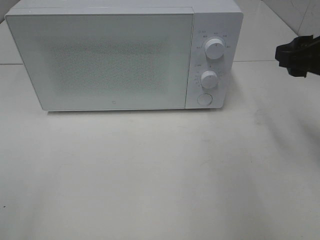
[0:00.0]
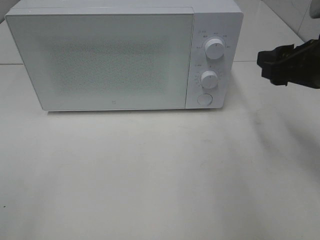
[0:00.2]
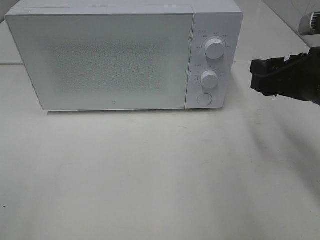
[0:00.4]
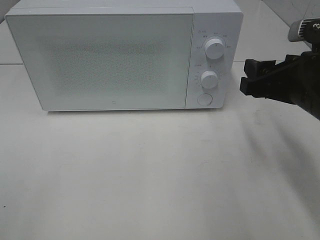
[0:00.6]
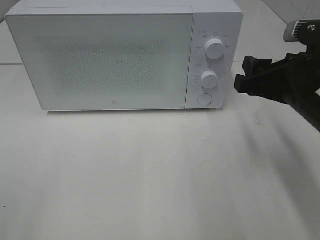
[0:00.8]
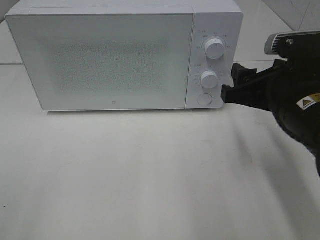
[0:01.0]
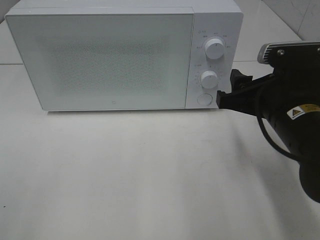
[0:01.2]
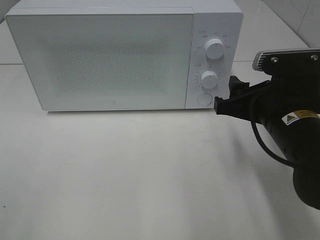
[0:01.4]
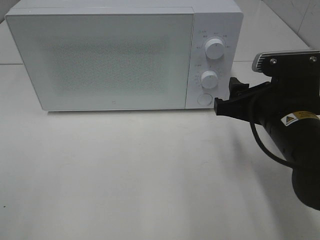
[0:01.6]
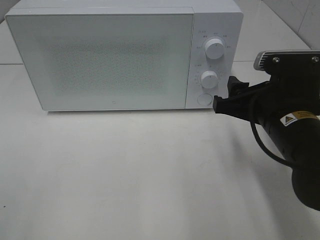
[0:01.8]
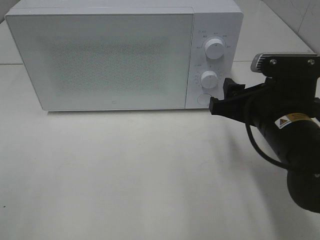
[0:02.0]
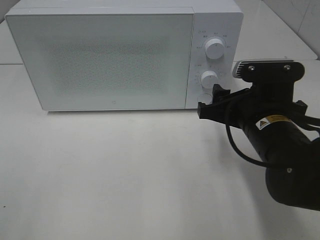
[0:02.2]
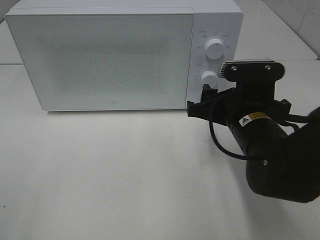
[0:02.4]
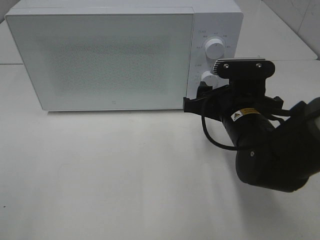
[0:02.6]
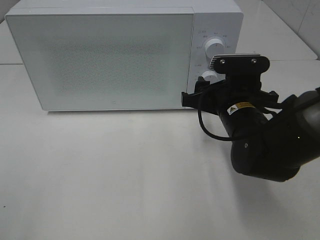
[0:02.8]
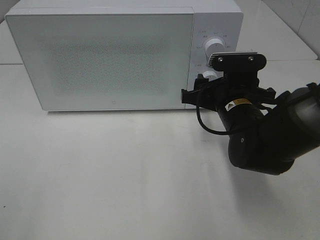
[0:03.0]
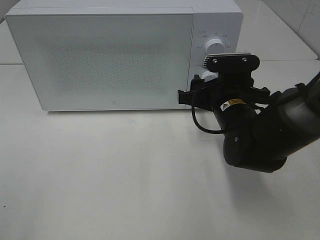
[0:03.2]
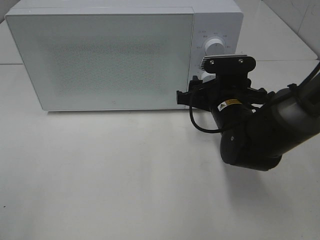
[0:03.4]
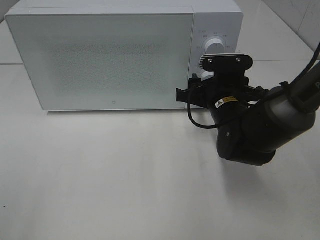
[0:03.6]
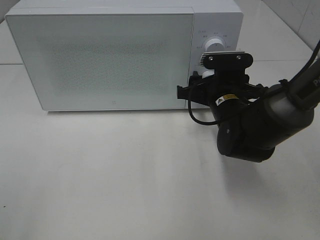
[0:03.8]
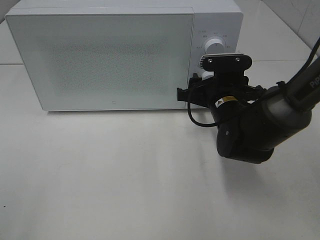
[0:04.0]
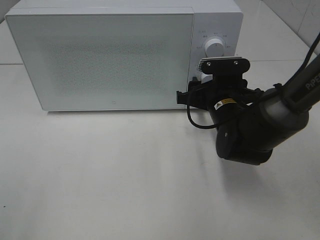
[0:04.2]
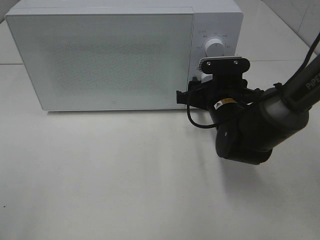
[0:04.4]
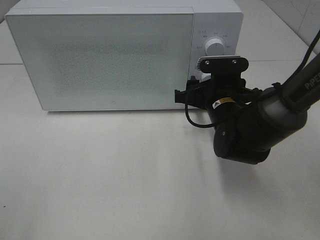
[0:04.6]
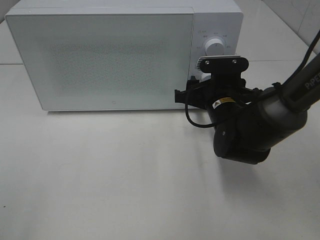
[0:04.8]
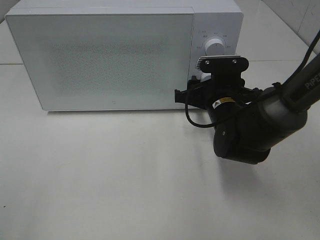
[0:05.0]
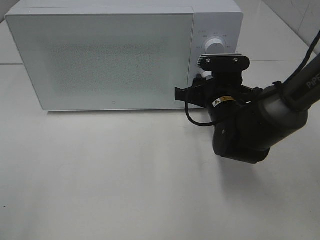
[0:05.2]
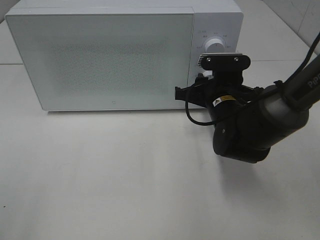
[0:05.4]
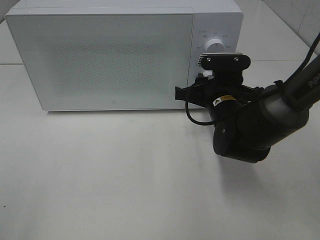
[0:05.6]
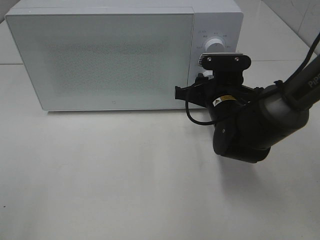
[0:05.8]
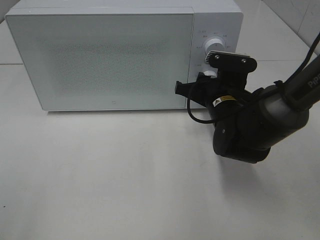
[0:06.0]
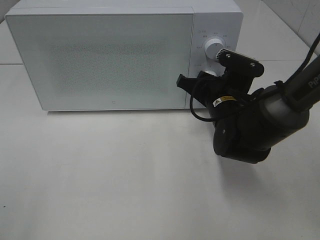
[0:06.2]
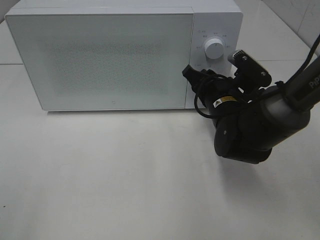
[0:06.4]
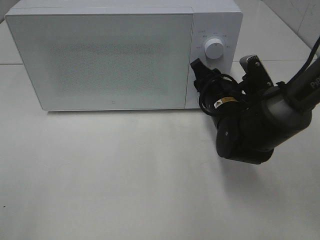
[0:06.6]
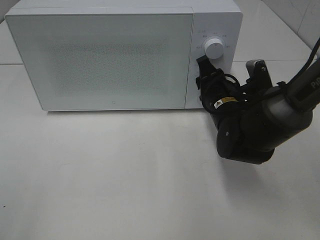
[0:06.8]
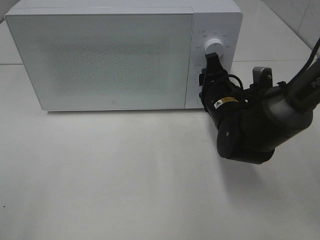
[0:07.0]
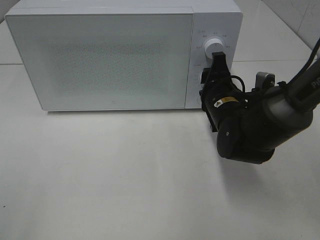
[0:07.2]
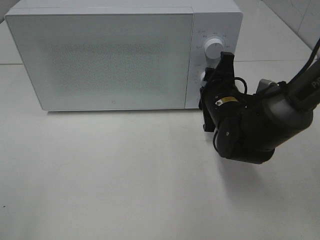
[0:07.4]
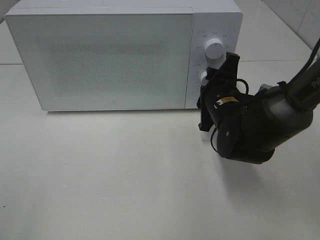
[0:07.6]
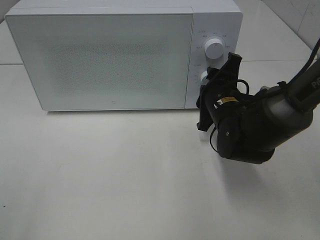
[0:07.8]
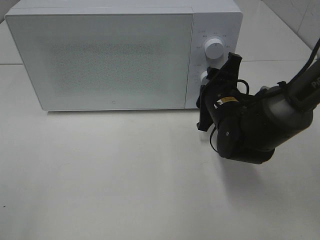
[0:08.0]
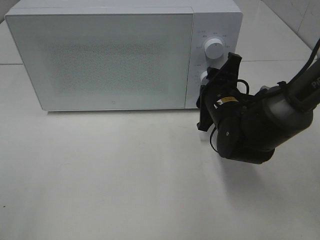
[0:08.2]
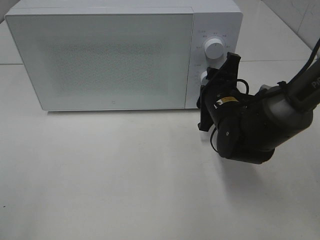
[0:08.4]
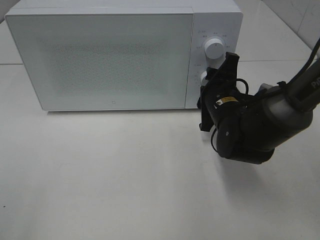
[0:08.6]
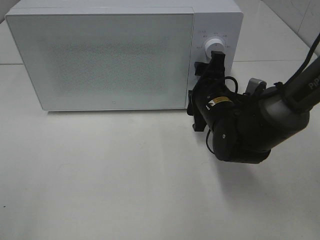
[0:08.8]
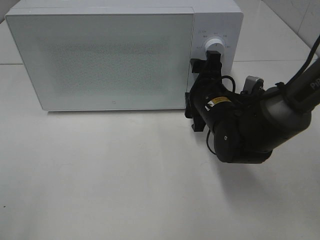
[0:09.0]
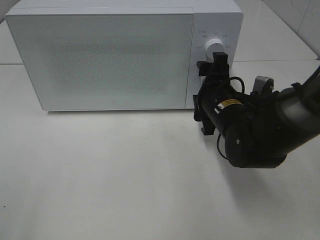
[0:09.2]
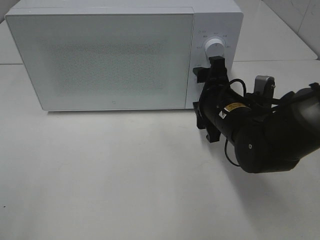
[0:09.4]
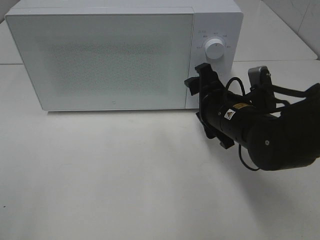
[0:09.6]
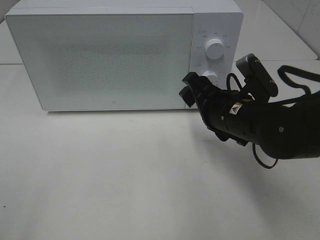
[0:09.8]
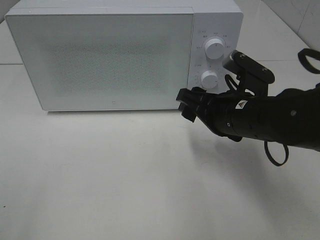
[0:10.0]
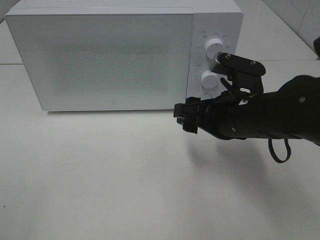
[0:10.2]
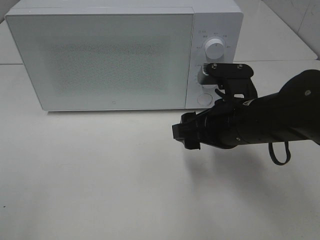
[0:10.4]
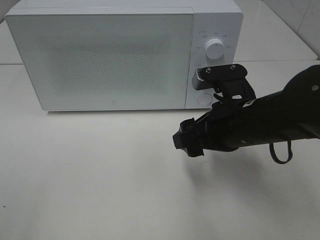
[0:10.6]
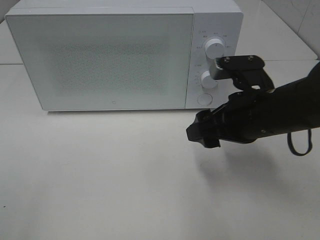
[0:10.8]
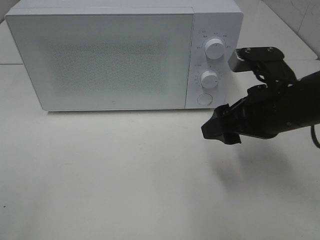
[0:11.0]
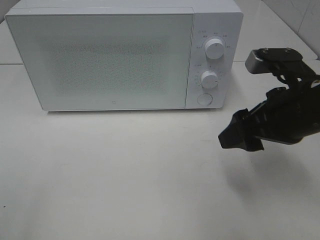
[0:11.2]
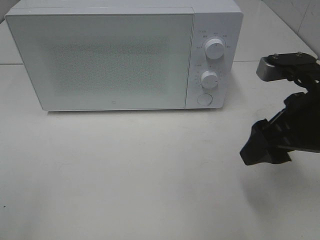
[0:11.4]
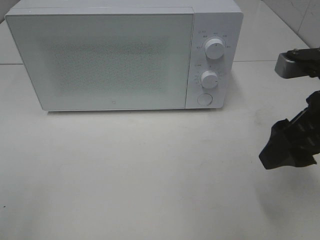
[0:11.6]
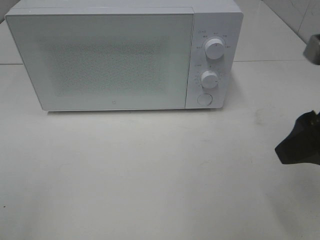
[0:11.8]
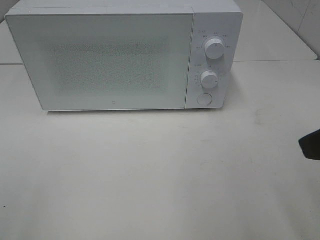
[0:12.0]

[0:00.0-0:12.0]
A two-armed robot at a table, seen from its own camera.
Task of the whole recording: Heat the burger.
Step, 0:00.0 to 0:08.8: Right hand: twist timer button.
0:00.0 to 0:01.6: The right gripper is displaced to the left and downward by approximately 10 cm.
0:01.6 to 0:03.0: The right gripper shifts roughly 10 cm forward.
0:03.0 to 0:06.0: There are only small adjustments of the grippers.
0:07.6 to 0:09.0: The right gripper opens its fingers.
0:09.0 to 0:10.4: The right gripper is displaced backward by some 10 cm.
0:10.4 to 0:12.0: The right gripper is displaced upward, backward and to the right by roughly 20 cm.

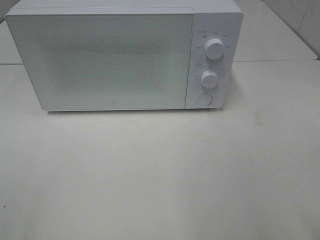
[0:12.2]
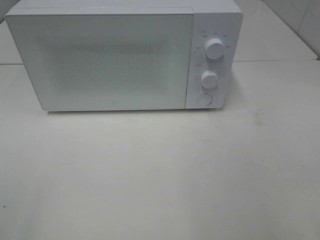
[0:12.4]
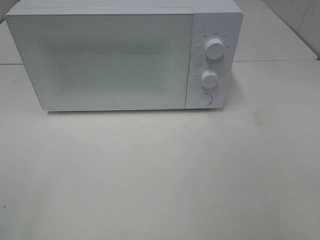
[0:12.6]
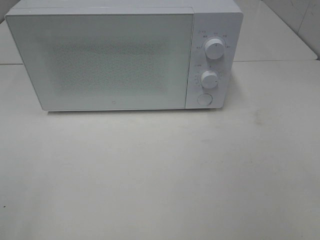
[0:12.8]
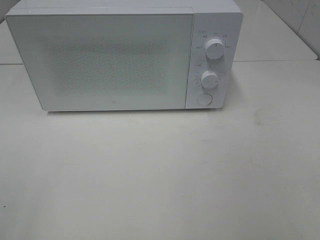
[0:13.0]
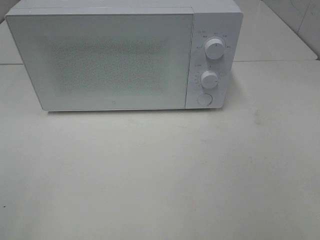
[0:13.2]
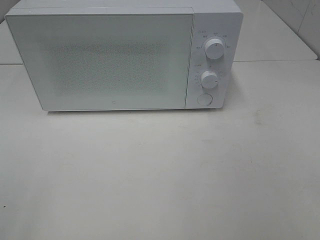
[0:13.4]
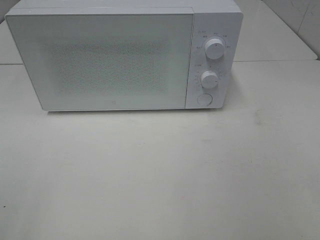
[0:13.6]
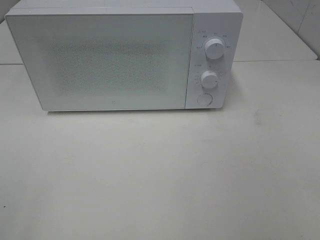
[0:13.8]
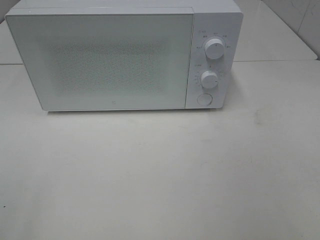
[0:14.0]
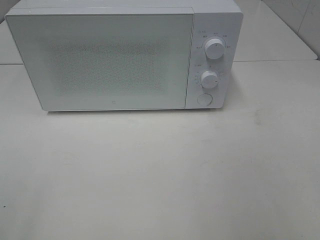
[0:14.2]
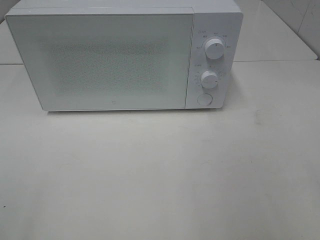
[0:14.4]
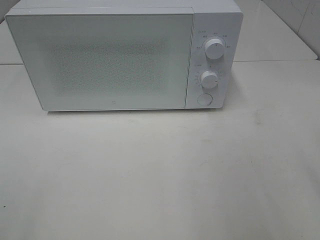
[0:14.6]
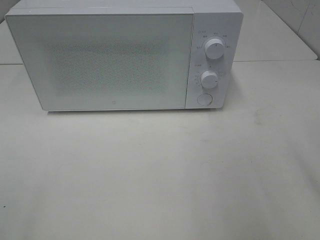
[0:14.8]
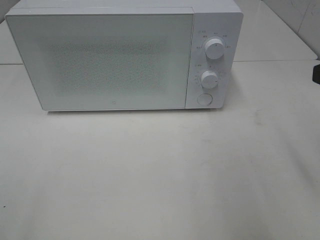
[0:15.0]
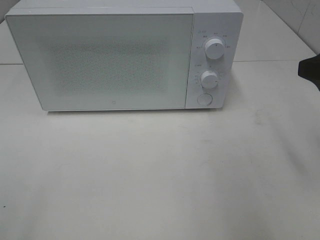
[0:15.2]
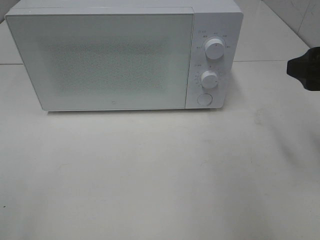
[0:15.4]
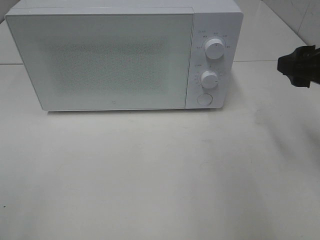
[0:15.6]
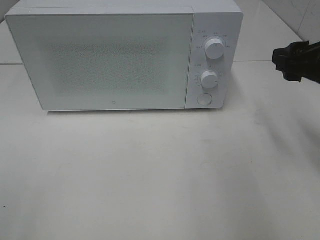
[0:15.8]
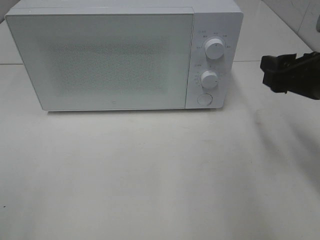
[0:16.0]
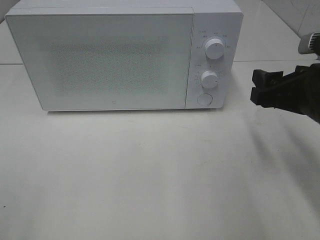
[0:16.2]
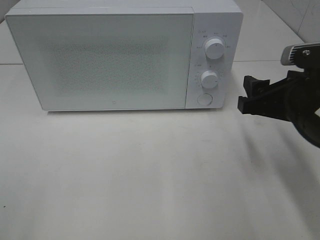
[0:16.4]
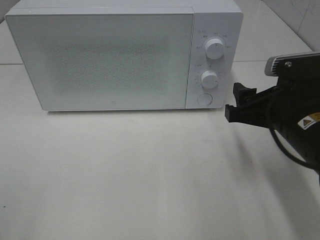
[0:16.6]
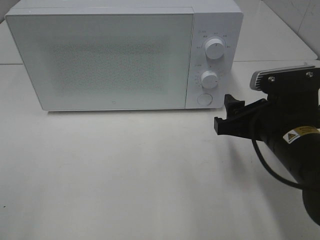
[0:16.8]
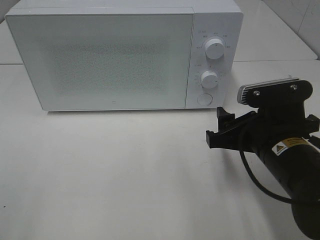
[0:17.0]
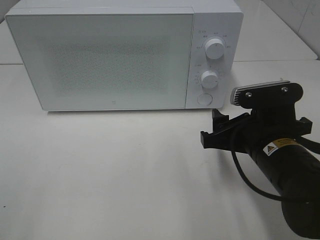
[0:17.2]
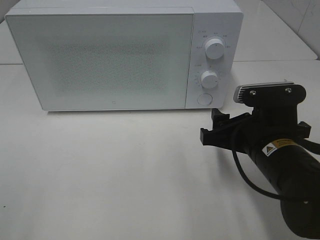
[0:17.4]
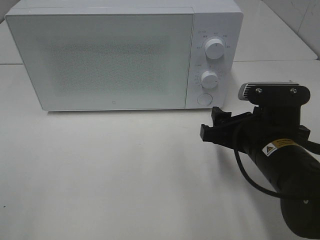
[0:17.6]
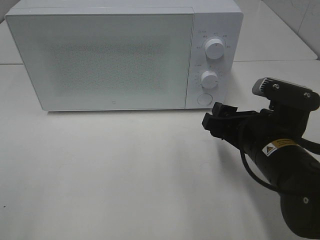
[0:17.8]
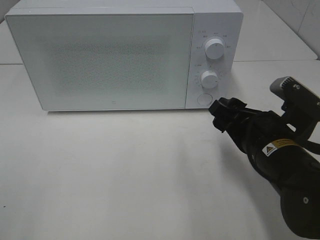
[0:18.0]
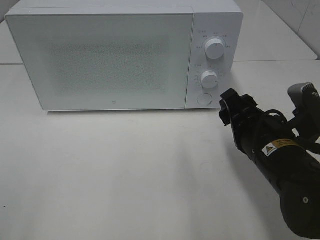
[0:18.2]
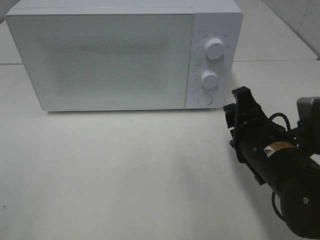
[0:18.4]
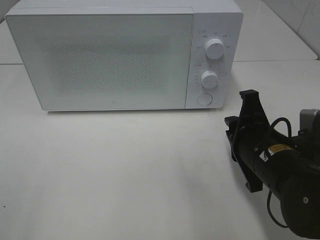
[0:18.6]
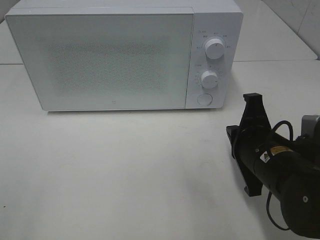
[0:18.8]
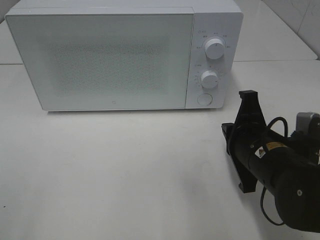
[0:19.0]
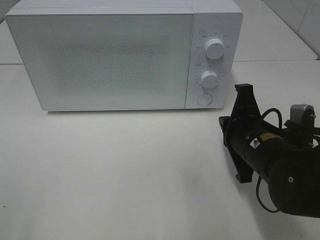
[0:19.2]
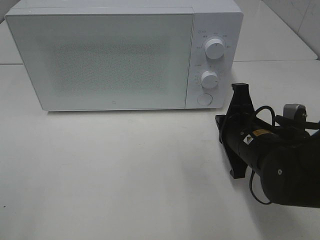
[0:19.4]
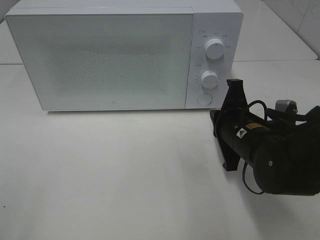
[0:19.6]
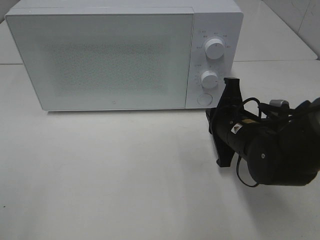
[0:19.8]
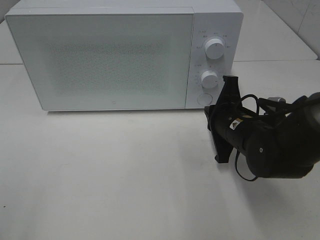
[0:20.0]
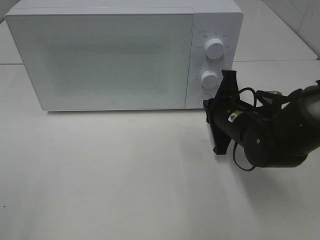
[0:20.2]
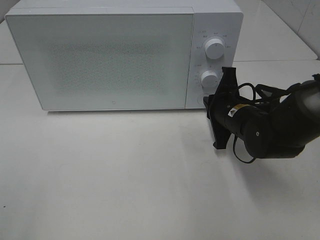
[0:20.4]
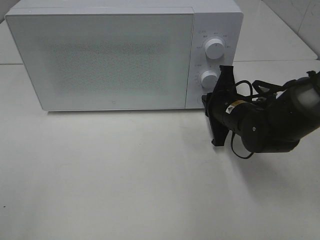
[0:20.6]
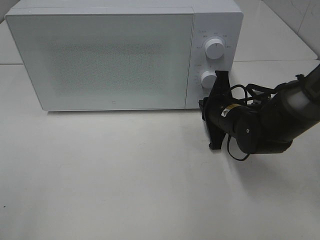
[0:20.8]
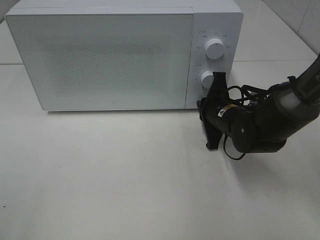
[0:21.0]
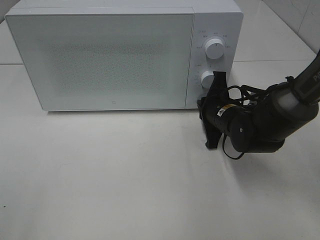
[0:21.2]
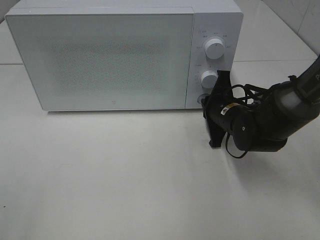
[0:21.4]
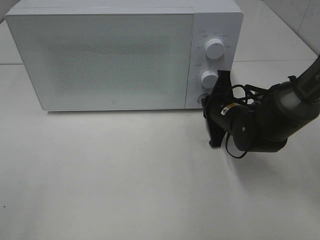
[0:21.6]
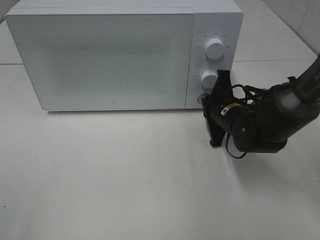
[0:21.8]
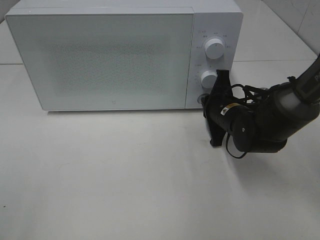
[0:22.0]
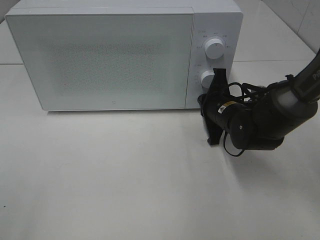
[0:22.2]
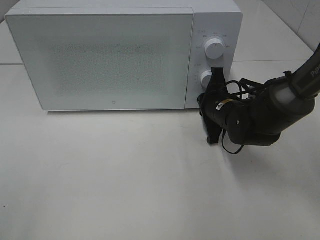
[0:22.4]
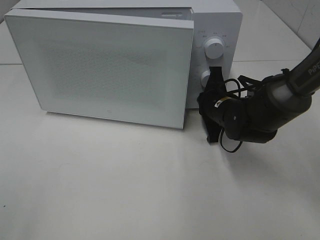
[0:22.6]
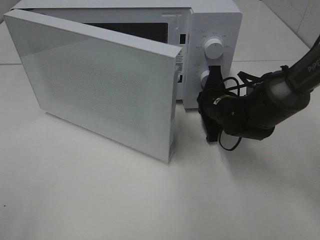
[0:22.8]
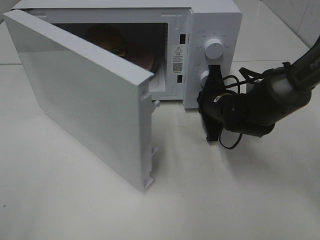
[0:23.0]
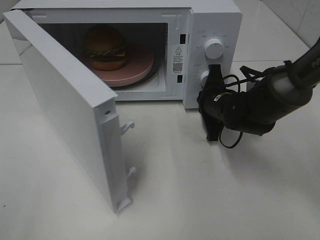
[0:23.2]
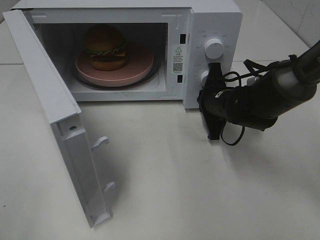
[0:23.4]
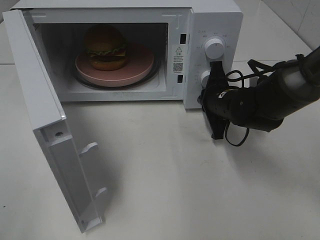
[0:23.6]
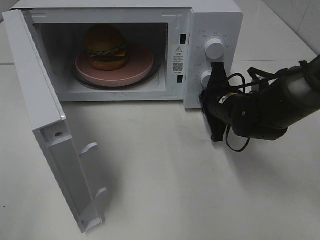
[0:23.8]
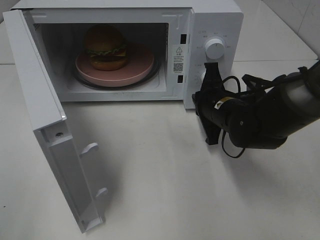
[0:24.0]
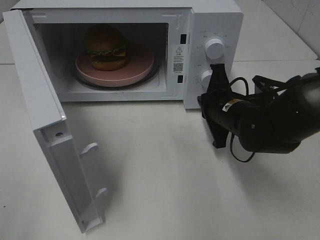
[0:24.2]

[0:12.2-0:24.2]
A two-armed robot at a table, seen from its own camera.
Task of the whole recording: Heat the burger.
Step, 0:12.2 to 0:24.2: Right hand: press the switch.
0:13.8 to 0:15.2: The right gripper heads forward, covering about 20 cm.
0:15.2 to 0:16.6: The right gripper moves downward and to the left, some 15 cm.
0:18.2 to 0:19.8: The right gripper is displaced forward by approximately 5 cm, and closes up.
0:19.8 to 0:21.2: The right gripper shifts some 5 cm forward.
0:21.2 to 0:22.6: The grippers stay close to where they were, moving slightly.
0:22.6 to 0:24.2: The right gripper travels backward by some 5 cm.
